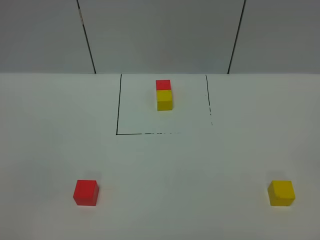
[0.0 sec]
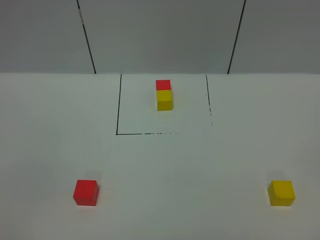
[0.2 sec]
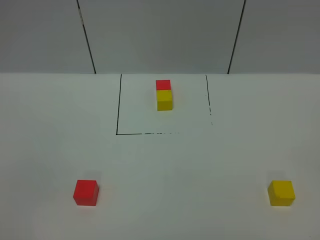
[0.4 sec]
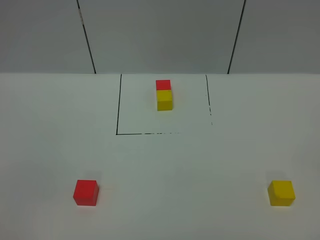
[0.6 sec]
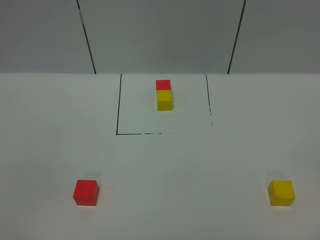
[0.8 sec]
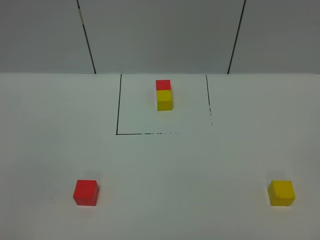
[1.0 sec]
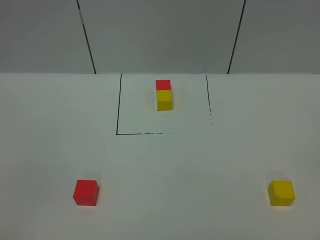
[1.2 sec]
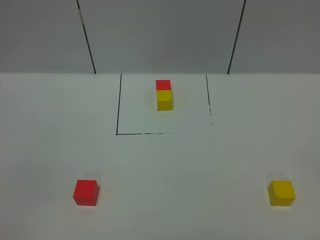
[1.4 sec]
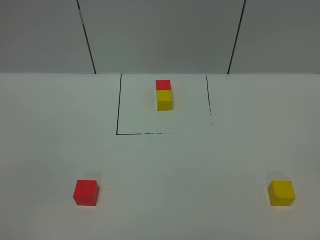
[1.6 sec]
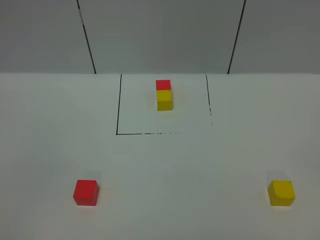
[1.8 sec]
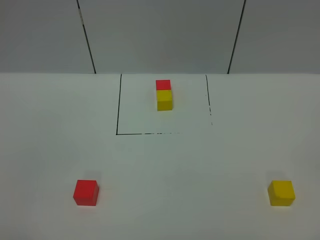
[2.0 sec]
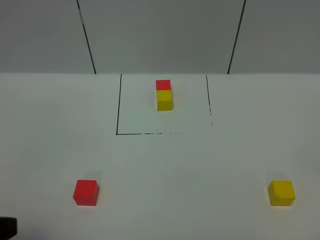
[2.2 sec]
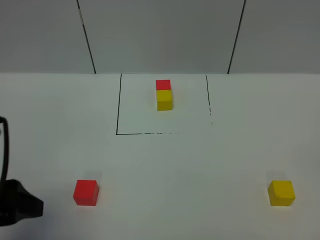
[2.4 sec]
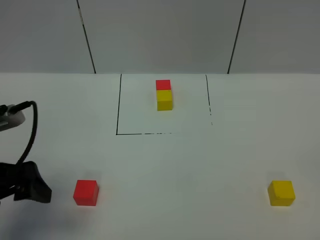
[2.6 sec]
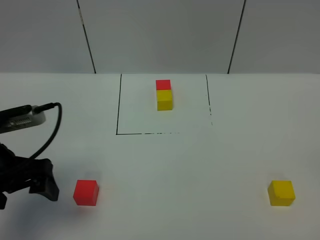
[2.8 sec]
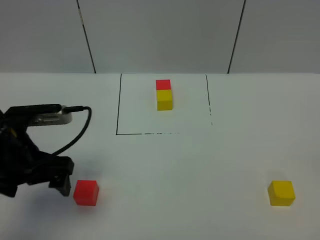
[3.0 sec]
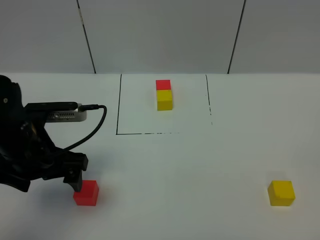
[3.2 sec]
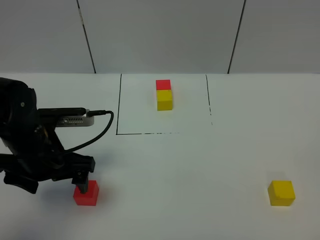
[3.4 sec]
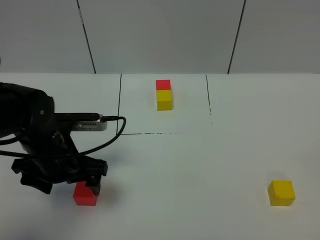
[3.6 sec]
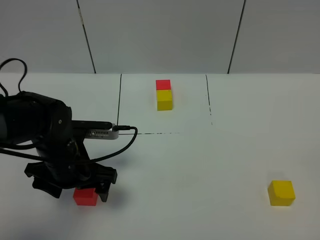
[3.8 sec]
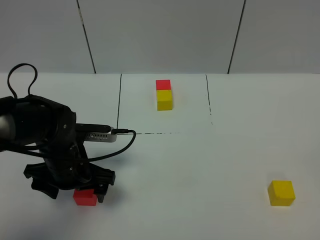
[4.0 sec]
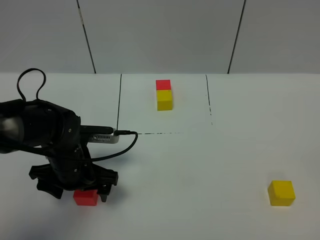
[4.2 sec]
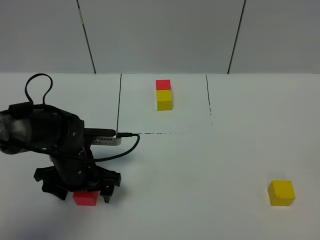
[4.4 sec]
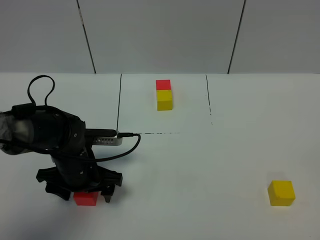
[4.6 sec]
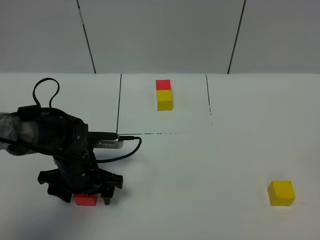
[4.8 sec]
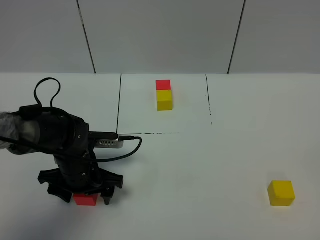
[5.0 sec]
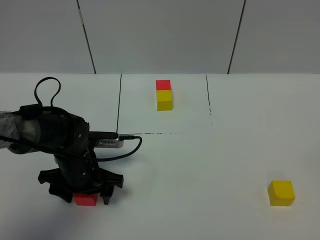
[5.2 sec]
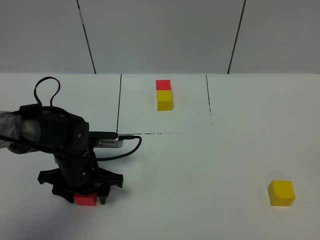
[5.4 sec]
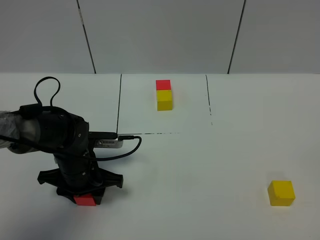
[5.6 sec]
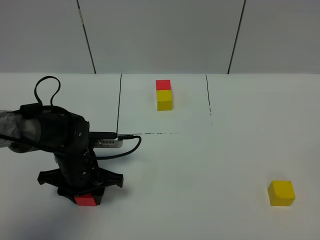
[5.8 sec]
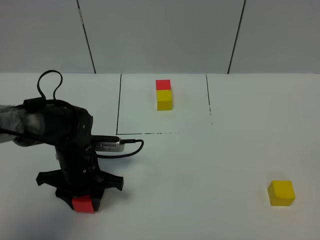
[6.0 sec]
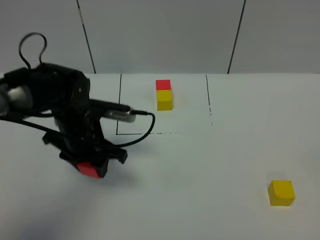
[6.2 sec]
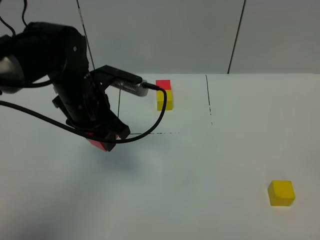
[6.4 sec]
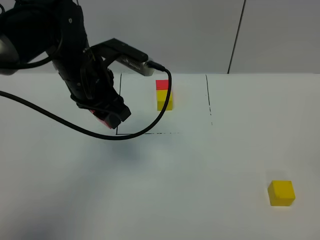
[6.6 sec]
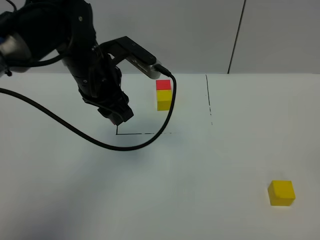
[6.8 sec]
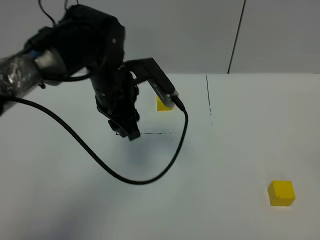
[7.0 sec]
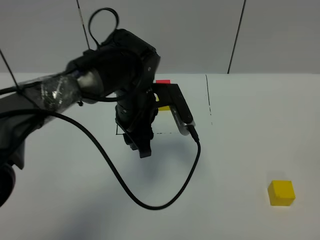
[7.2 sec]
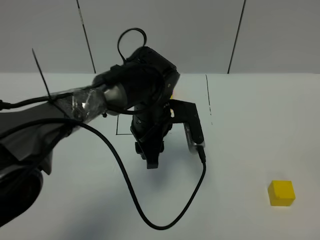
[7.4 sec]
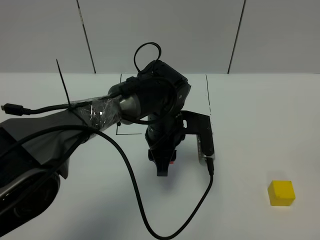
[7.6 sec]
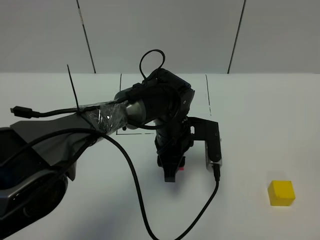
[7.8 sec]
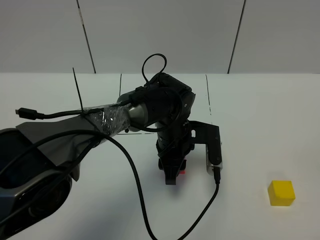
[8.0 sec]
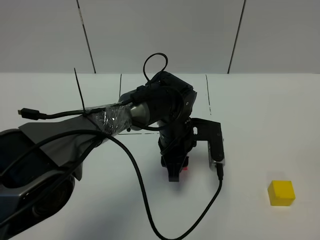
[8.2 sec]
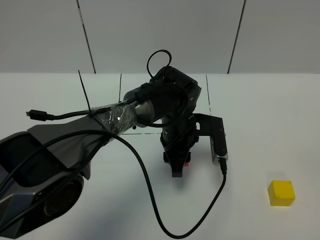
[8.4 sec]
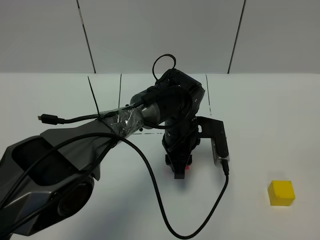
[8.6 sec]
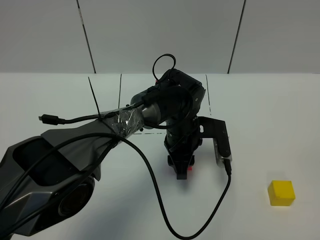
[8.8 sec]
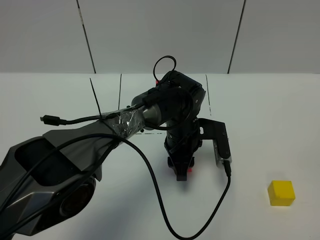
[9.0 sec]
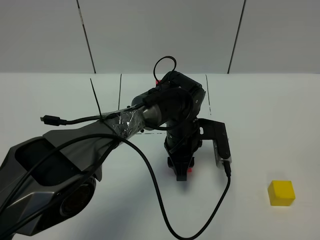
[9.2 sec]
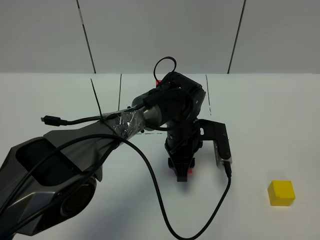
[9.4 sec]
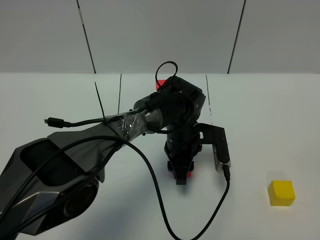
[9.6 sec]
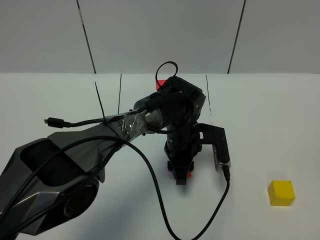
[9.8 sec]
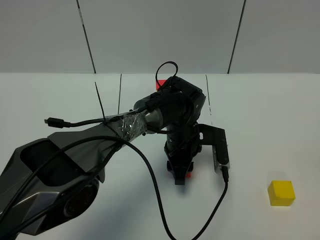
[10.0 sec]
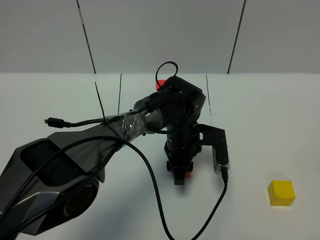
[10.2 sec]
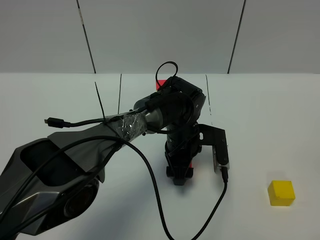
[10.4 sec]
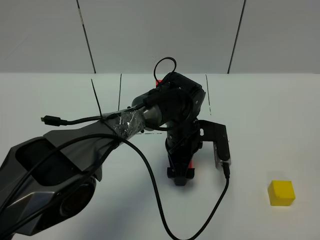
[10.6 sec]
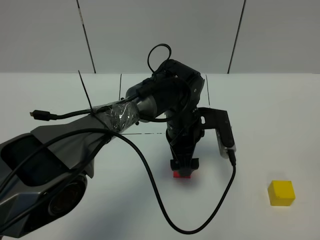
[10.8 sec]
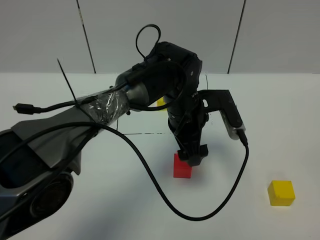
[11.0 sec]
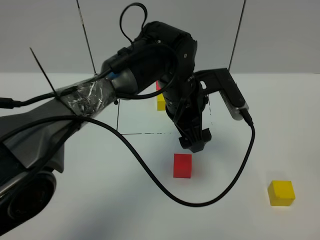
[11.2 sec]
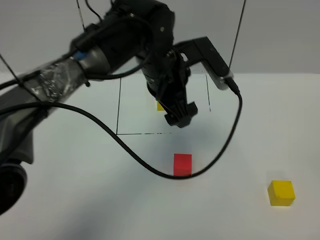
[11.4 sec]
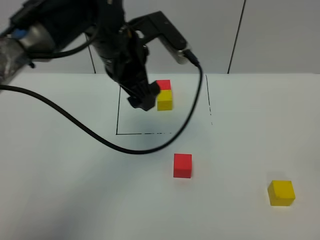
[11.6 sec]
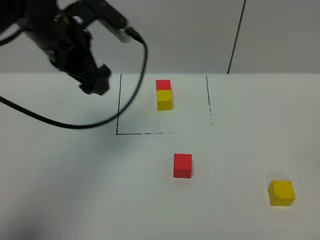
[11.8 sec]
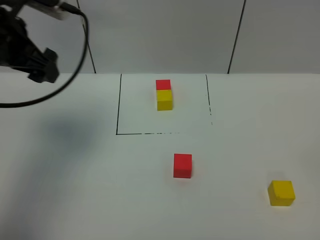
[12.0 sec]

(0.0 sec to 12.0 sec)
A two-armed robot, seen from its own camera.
Task of the whole recording: According to the building block template in front, assemble the scattered blocks together.
Step, 2.2 sec - 11.8 sec: Put the orange cube in the center of the table.
0.0 sec - 1.6 sec: The two grippers keep their place.
1.6 sec - 3.0 sec: The left gripper goes roughly 25 cm forward, and opens up.
3.0 sec - 4.4 sec: The left gripper travels downward, to the right and forward by roughly 15 cm.
4.4 sec - 6.0 sec: The left gripper closes up.
6.0 sec - 7.6 sec: The left gripper travels to the right by roughly 15 cm.
7.6 sec - 9.0 sec: The left gripper ends up some 5 cm from where it was.
9.0 sec - 10.4 sec: The left gripper opens its fingers.
10.4 sec - 12.0 sec: The left gripper goes roughly 40 cm to the left and upward, and opens up.

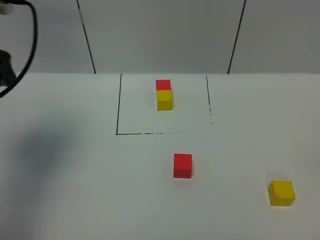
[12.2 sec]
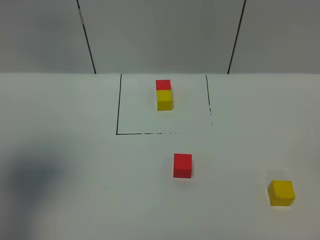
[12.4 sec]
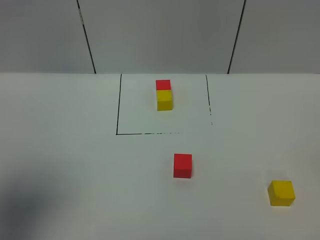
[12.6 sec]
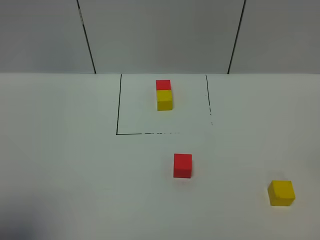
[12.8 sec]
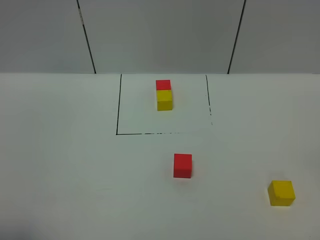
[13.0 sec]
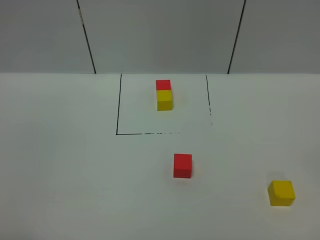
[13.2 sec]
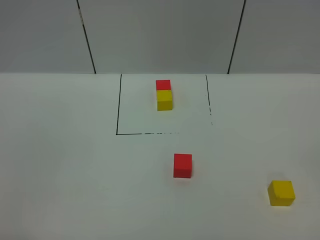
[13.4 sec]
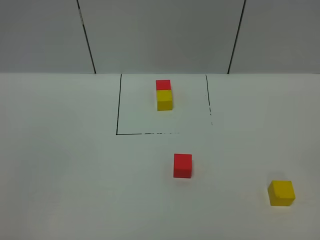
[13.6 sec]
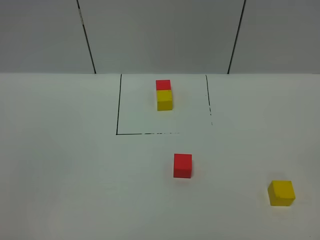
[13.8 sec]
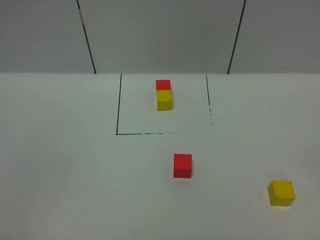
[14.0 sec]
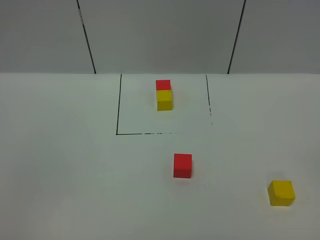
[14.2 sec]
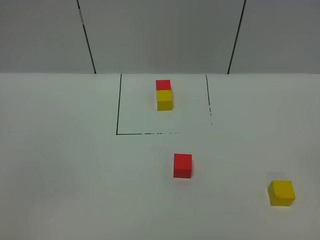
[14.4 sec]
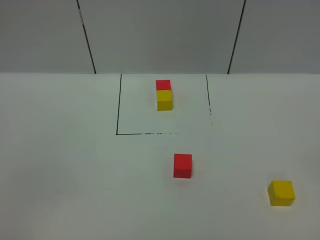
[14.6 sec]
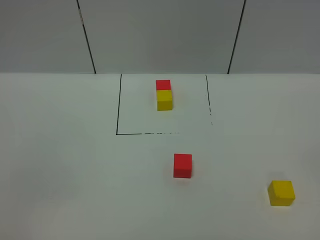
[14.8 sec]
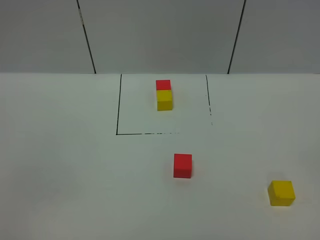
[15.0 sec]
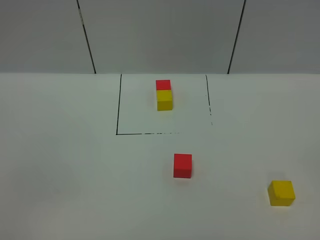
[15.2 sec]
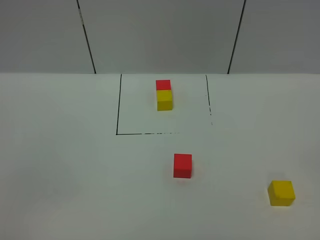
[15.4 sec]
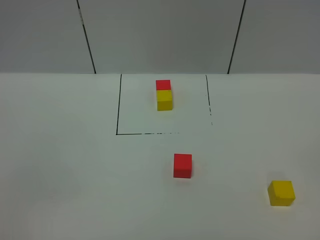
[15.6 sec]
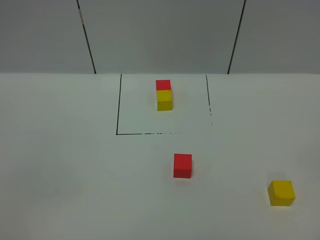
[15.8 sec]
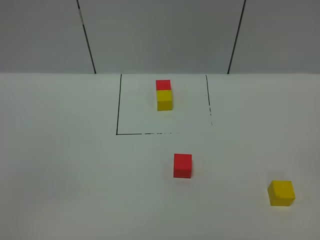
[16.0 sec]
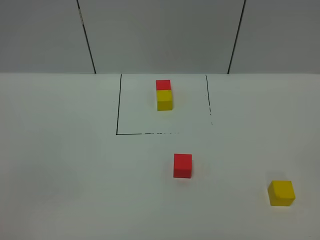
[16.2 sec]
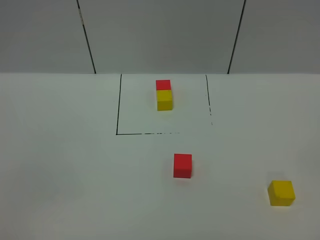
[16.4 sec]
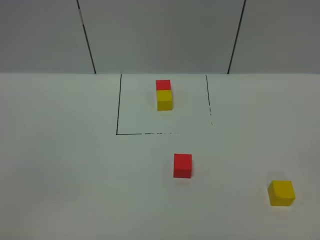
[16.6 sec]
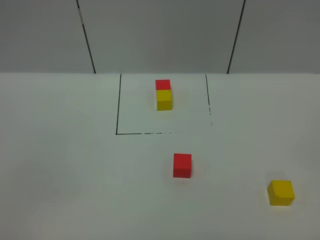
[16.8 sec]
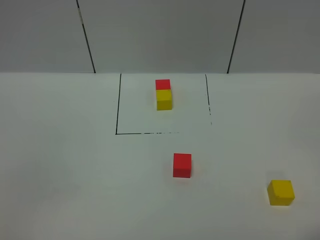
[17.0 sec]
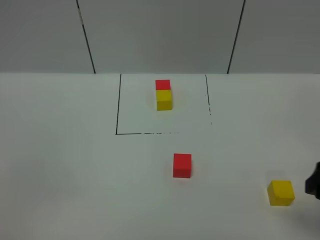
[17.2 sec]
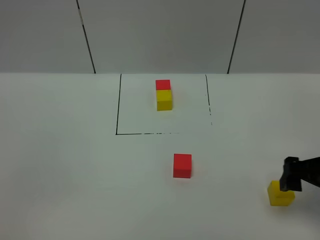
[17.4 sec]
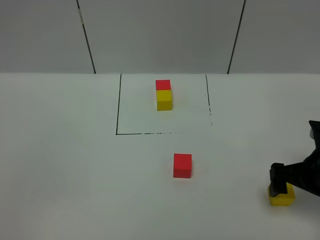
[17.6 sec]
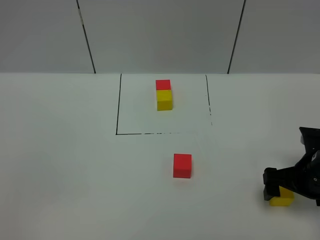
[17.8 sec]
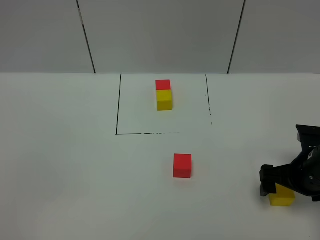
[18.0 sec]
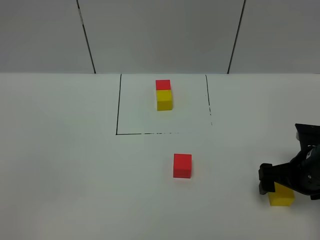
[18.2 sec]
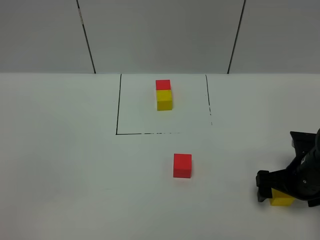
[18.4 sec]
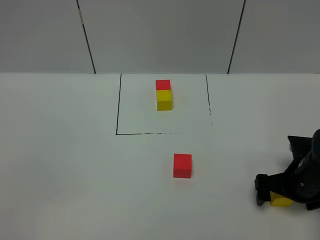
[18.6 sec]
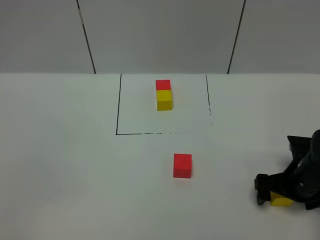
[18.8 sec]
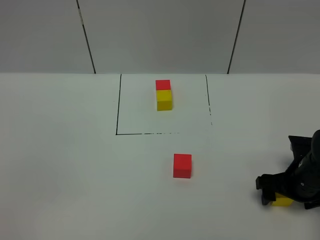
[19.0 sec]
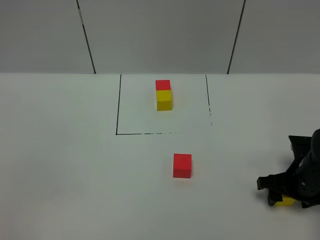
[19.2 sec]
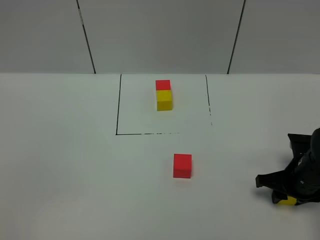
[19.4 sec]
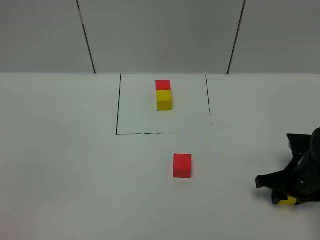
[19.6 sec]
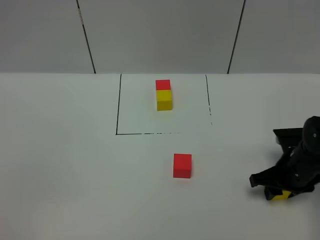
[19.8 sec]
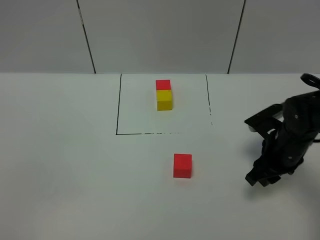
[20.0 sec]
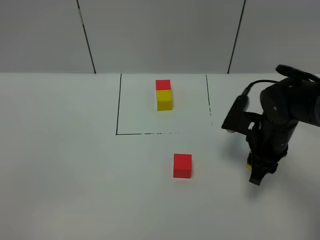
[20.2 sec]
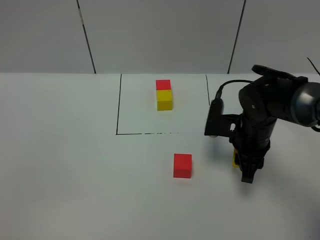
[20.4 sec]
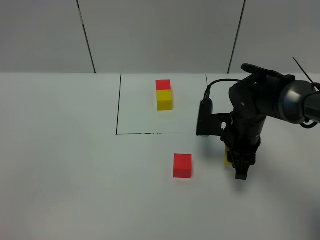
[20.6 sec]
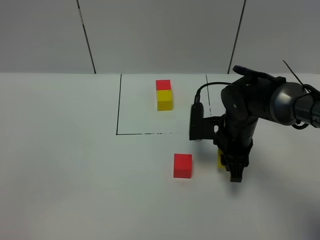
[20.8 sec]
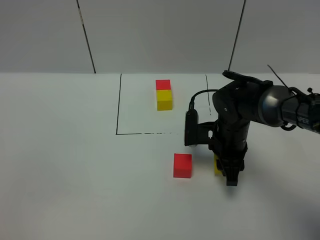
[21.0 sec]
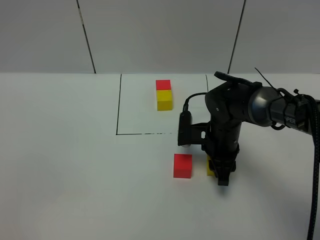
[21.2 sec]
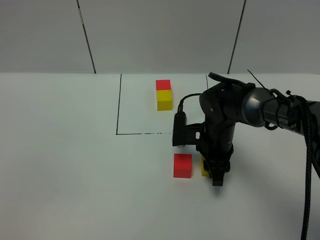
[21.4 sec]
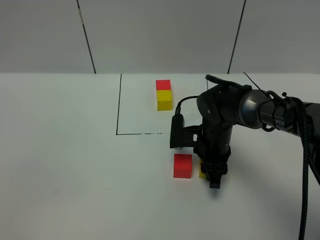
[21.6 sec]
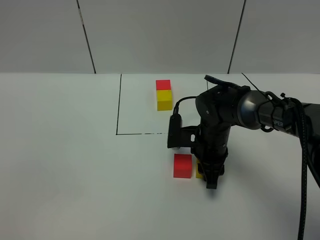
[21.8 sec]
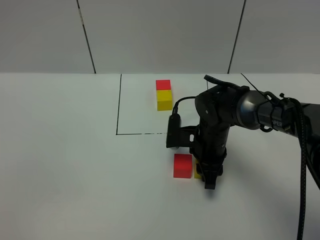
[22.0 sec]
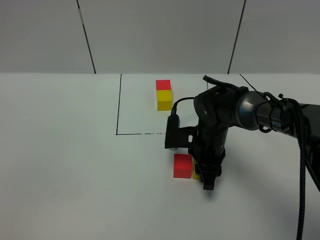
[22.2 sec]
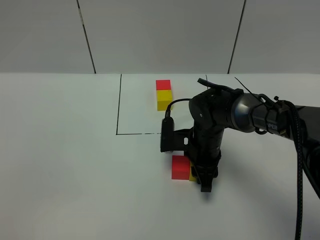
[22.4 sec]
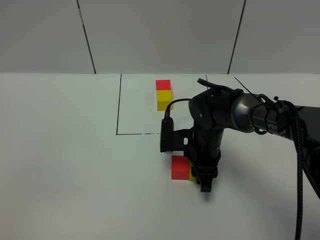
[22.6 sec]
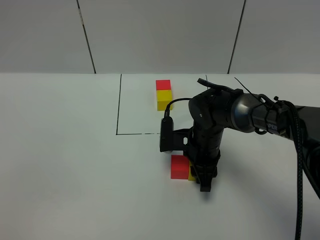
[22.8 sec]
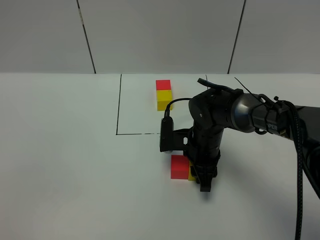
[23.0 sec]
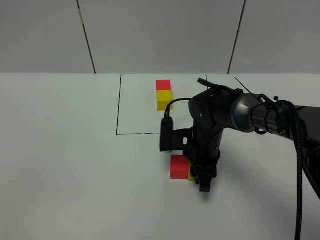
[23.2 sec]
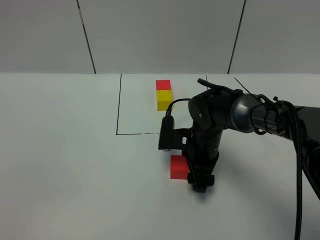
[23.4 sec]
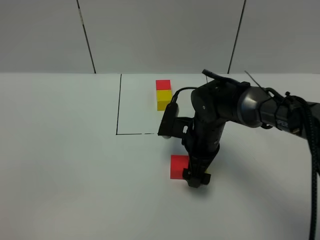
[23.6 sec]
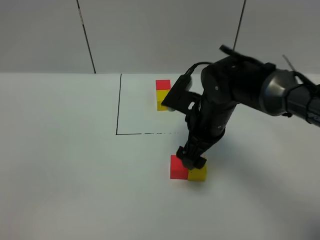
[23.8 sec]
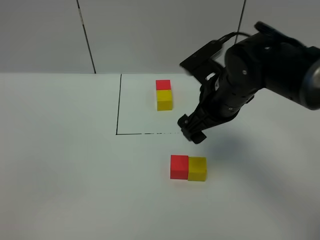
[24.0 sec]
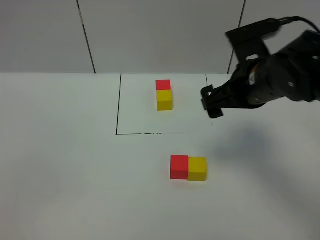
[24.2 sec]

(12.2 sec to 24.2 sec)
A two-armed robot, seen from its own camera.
Task of the whole recording: According to the building block template in front, assemble the scattered blocks together.
Step, 12.2 sec - 24.2 sec: Put the yellow cube on the right of the orange cube.
12.2 sec - 13.8 sec: The left gripper moves backward, about 30 cm.
15.2 sec - 16.6 sec: Both grippers stay about where they are.
16.6 sec - 18.2 sec: The right gripper is displaced forward and downward by some 30 cm.
18.2 sec - 19.8 sec: The right gripper closes its fingers.
19.8 sec - 21.2 sec: The right gripper heads to the left and forward, covering some 15 cm.
21.2 sec - 22.6 sec: The grippers move only a little.
22.6 sec - 24.2 sec: The right gripper goes roughly 20 cm upward and to the right, and opens.
